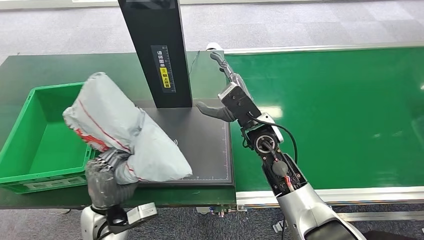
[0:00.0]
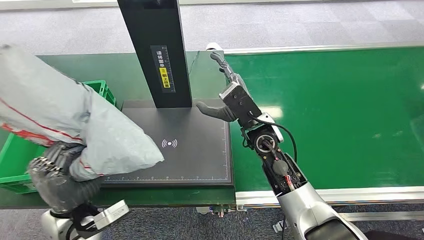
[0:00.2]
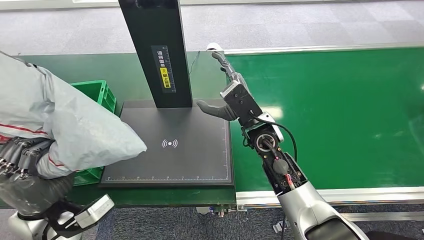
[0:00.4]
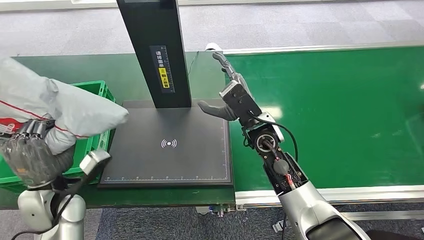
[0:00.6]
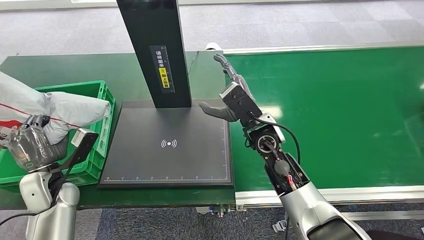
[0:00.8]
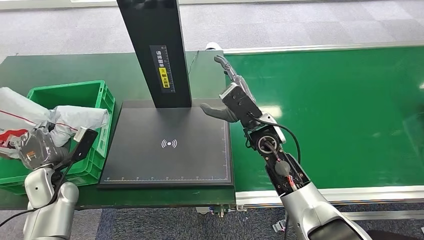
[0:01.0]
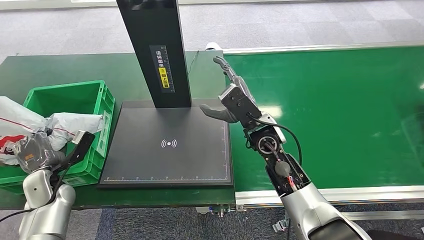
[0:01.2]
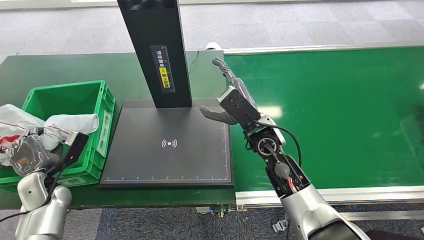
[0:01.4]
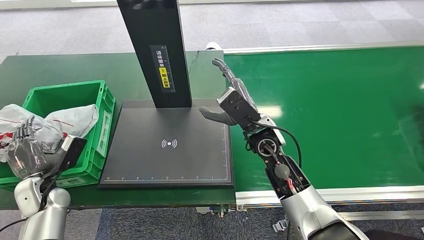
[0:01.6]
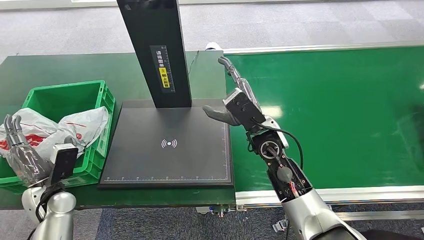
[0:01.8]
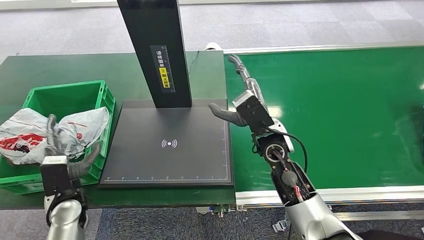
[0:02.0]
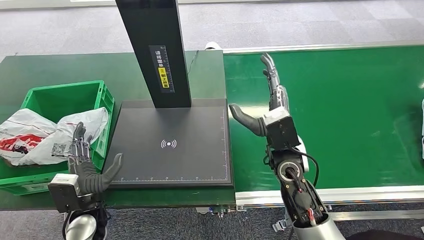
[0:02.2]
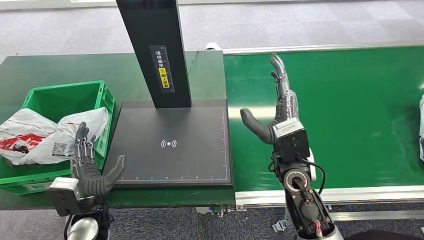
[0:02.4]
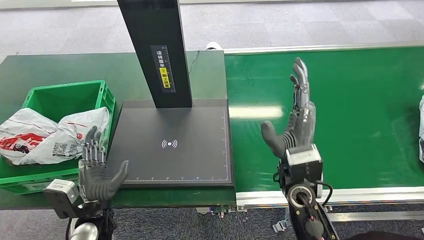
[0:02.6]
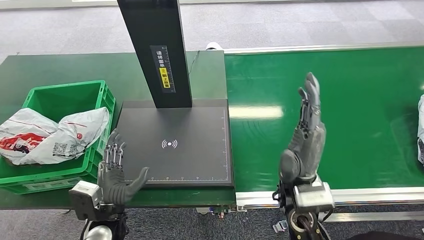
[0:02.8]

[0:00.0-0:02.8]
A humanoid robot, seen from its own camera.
Step, 0:00.6 to 0:02.8: Place the package into the parcel locker.
0:01.4 to 0:02.8: The left hand shifts roughly 25 cm to the right and backward. Meanwhile the right hand heads backward, covering about 15 cm.
